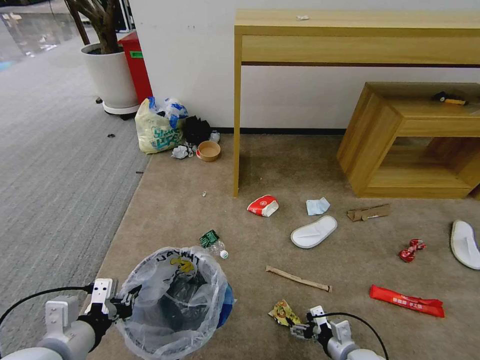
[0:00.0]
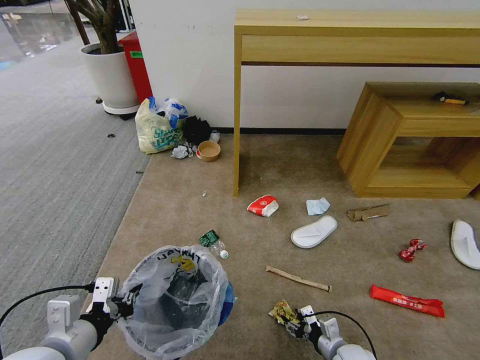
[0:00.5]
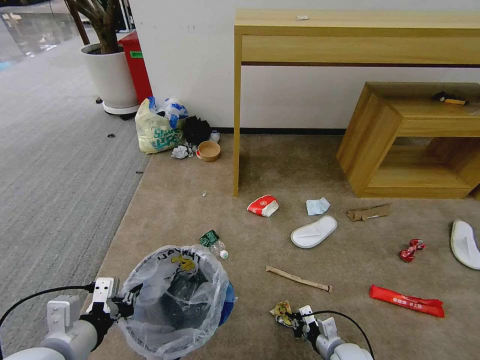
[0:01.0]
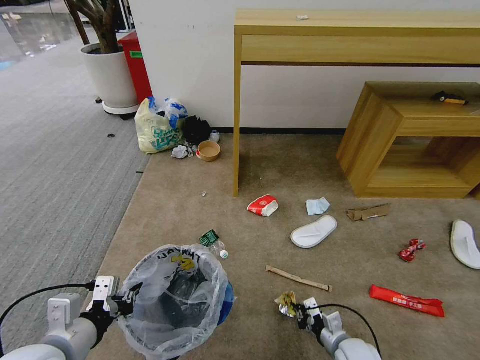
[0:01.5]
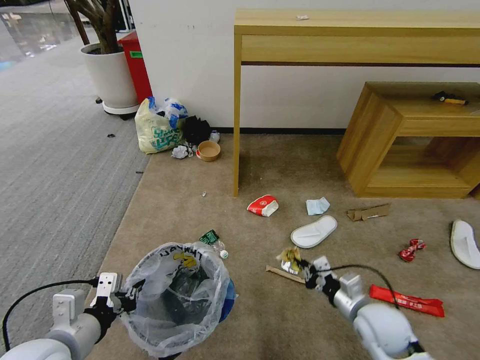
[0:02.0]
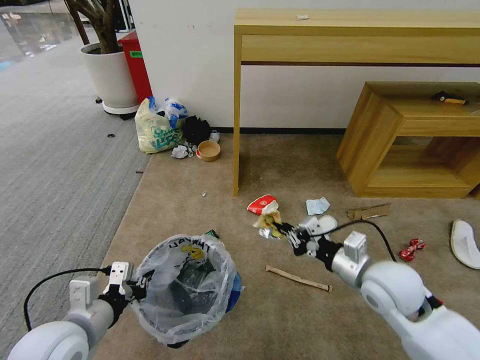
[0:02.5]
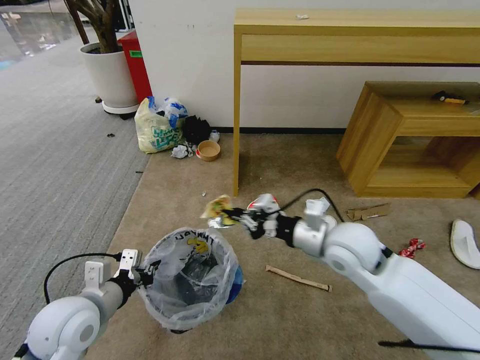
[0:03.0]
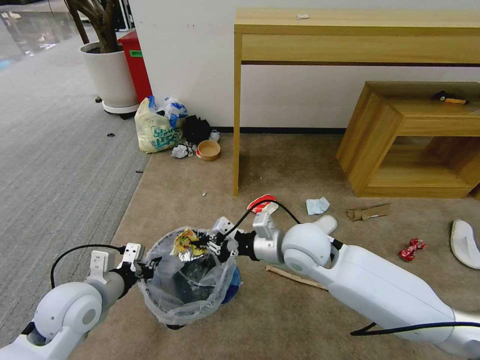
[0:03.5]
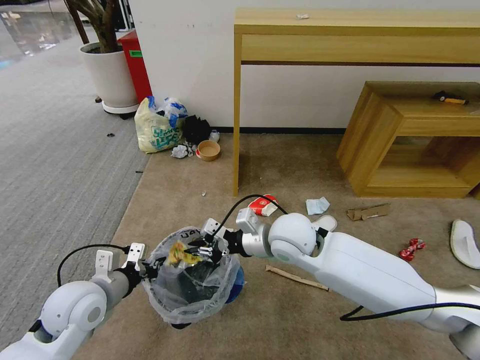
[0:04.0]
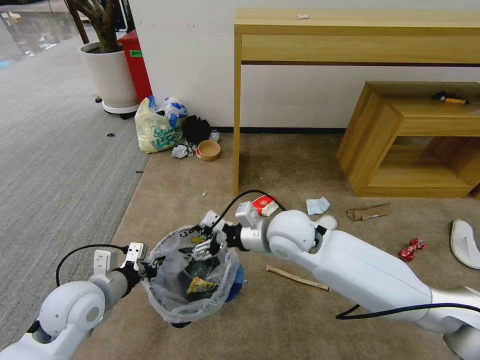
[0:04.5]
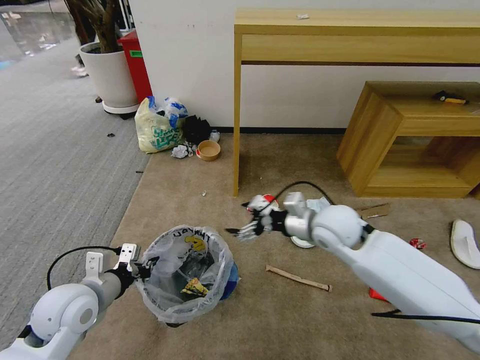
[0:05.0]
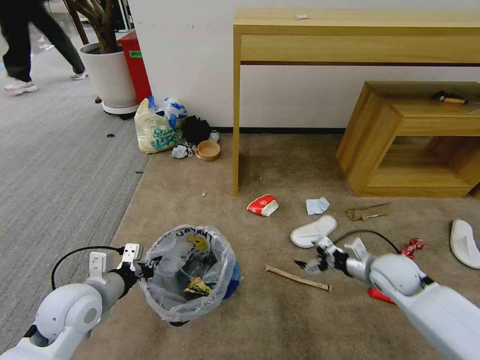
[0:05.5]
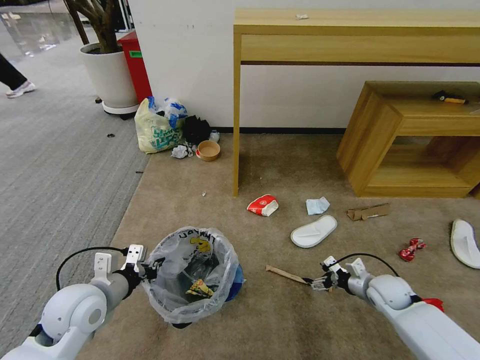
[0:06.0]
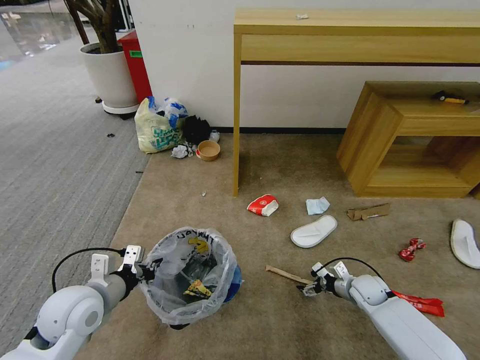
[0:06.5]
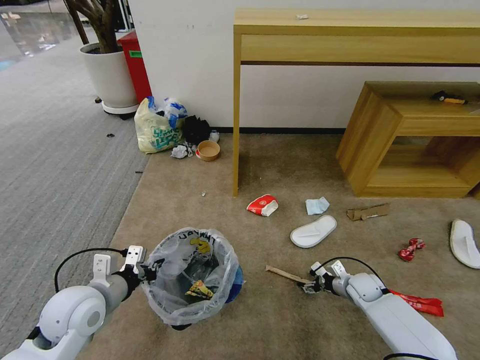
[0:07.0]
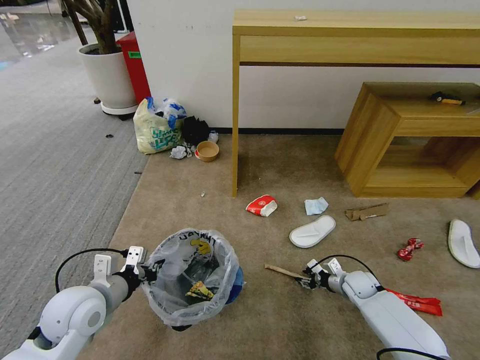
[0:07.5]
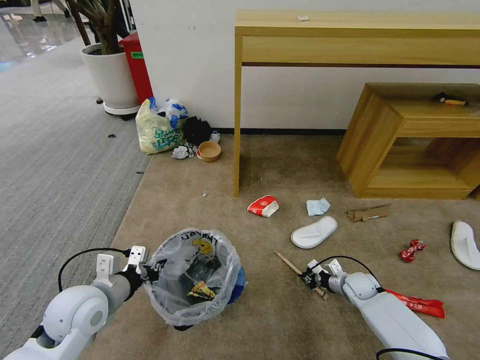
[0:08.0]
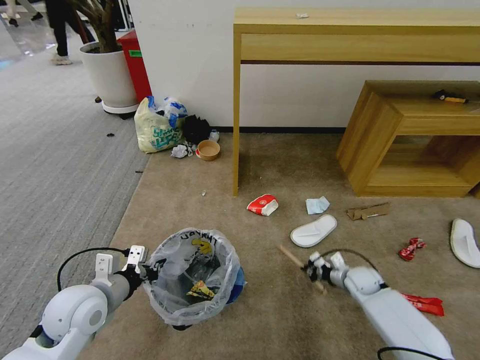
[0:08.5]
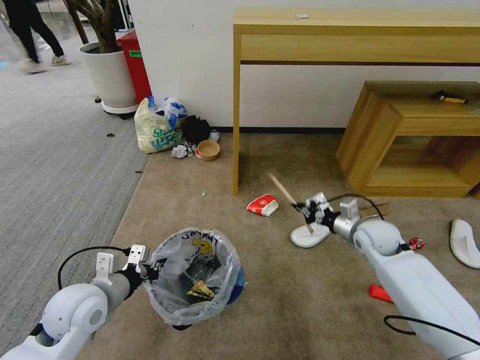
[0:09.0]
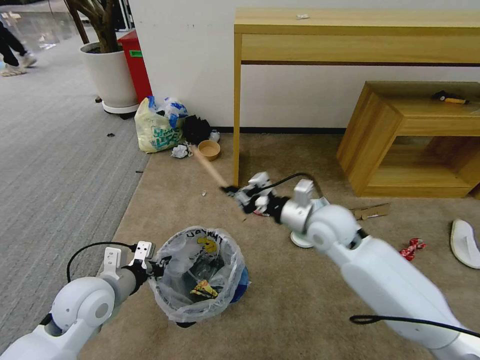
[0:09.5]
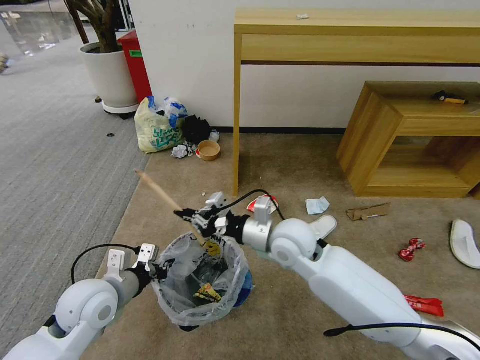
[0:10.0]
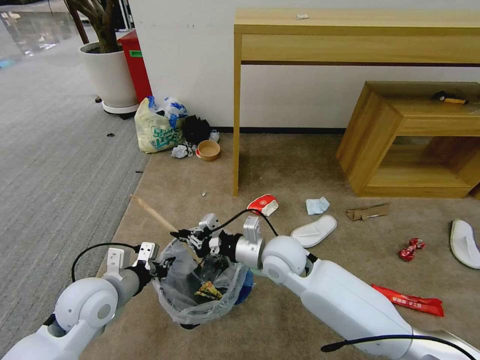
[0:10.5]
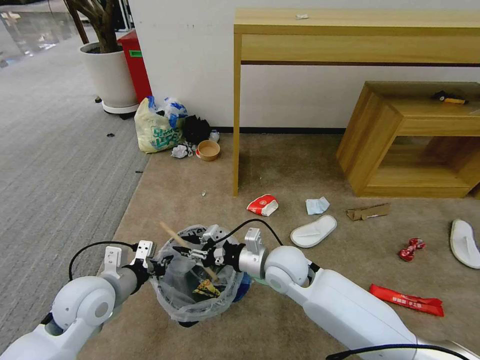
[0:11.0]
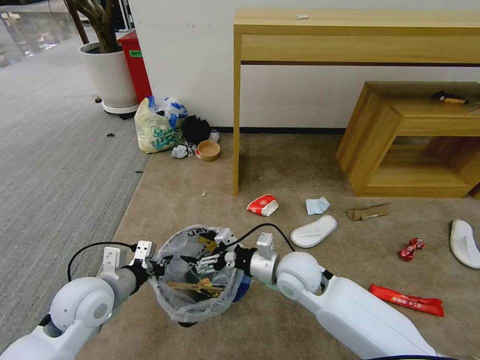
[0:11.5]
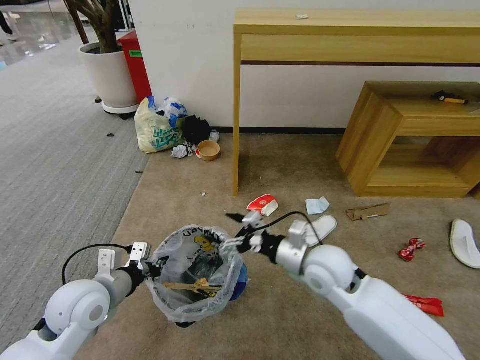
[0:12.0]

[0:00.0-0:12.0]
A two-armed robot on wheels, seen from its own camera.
Task of the whole recording: Pick up the trash bin and place the garbage on the floor into it.
0:00.0 to 0:02.0: The right gripper is displaced upward and forward by some 15 cm, and closes.
0:02.0 to 0:04.0: The right gripper travels to the left, upward and forward by roughly 30 cm, while the left gripper shifts about 10 cm forward.
0:04.0 to 0:06.0: The right gripper heads to the right and downward, covering about 35 cm, and opens its fingers.
0:06.0 to 0:08.0: The right gripper goes approximately 10 cm downward, and closes up.
0:08.0 to 0:10.0: The right gripper travels upward and to the left by about 40 cm.
0:10.0 to 0:12.0: The right gripper heads to the right, covering roughly 5 cm, and opens.

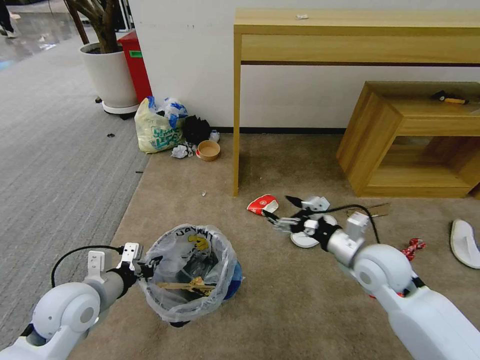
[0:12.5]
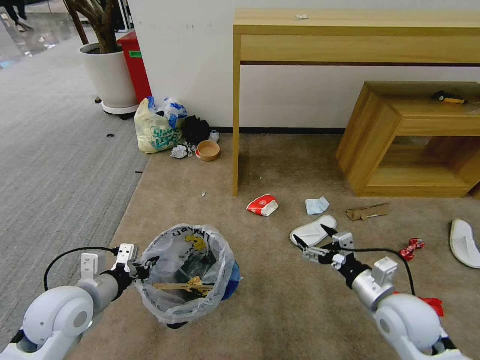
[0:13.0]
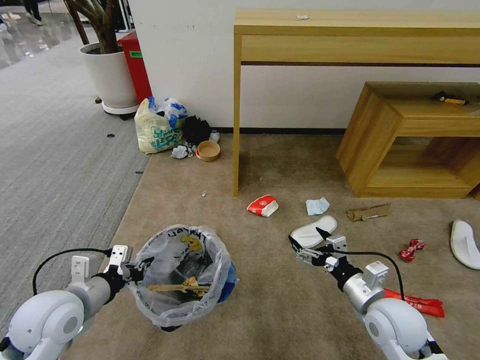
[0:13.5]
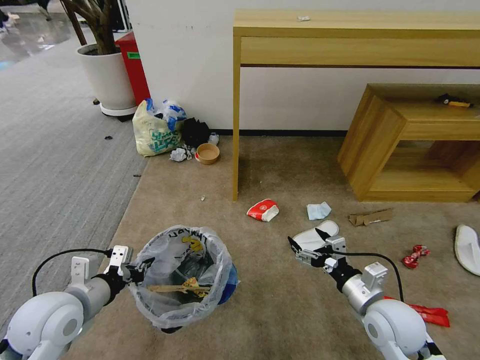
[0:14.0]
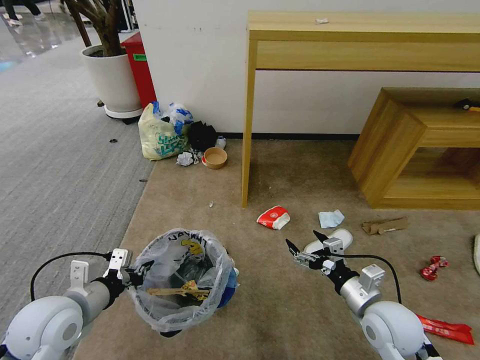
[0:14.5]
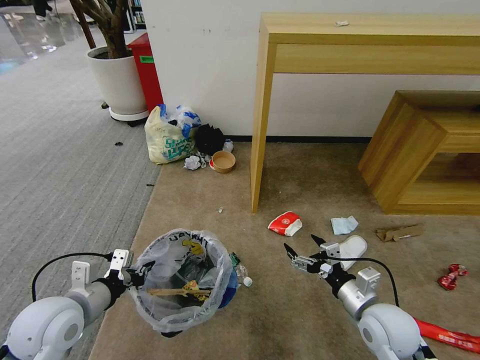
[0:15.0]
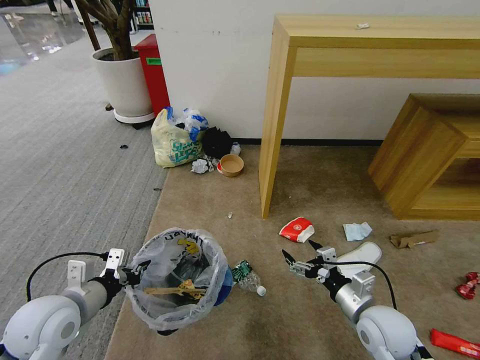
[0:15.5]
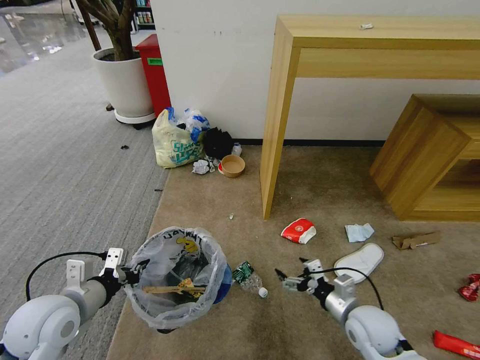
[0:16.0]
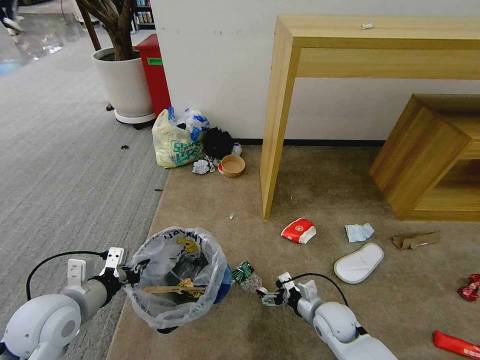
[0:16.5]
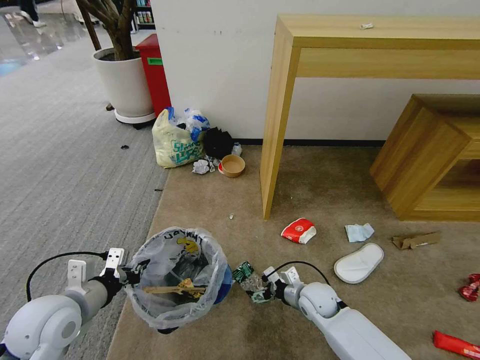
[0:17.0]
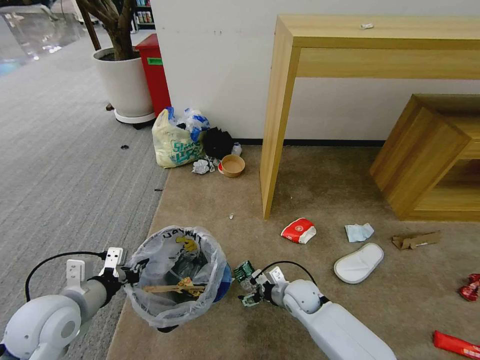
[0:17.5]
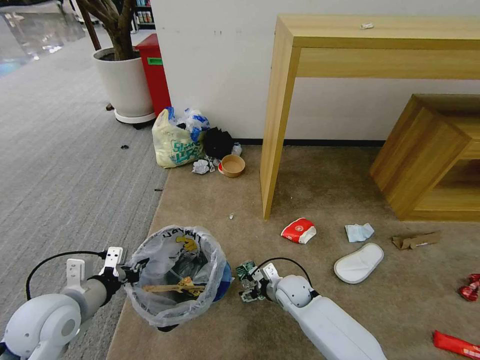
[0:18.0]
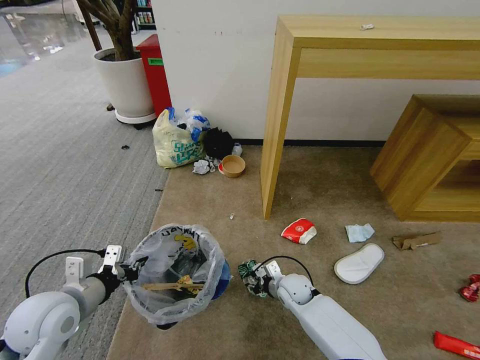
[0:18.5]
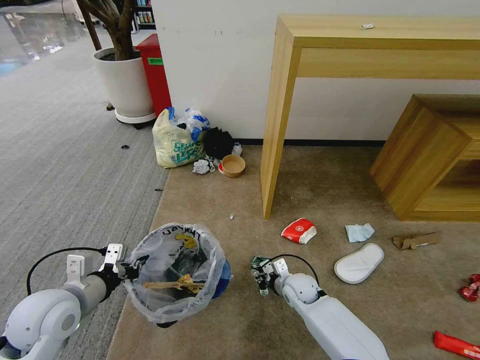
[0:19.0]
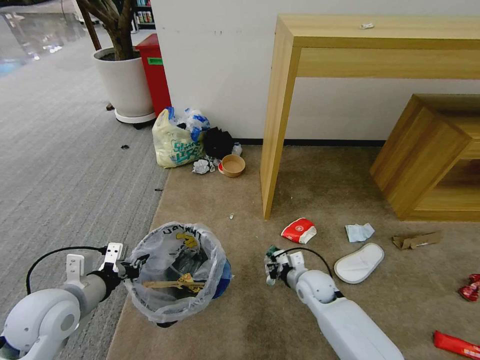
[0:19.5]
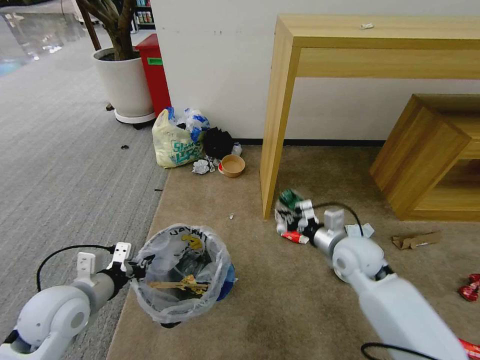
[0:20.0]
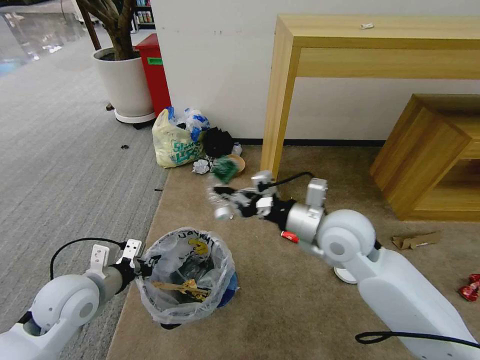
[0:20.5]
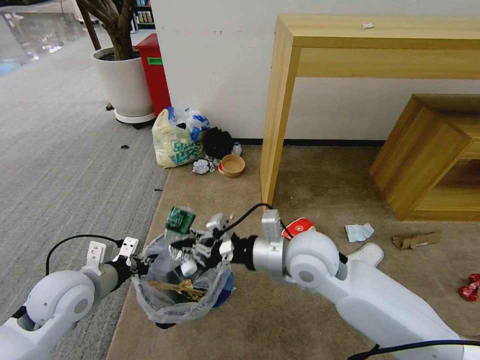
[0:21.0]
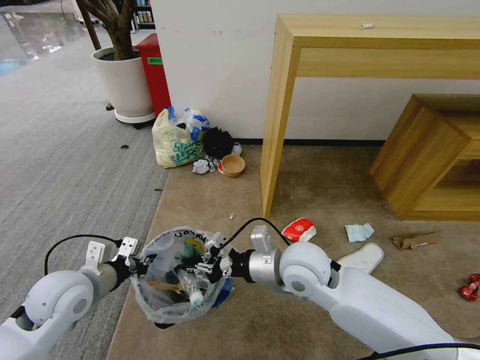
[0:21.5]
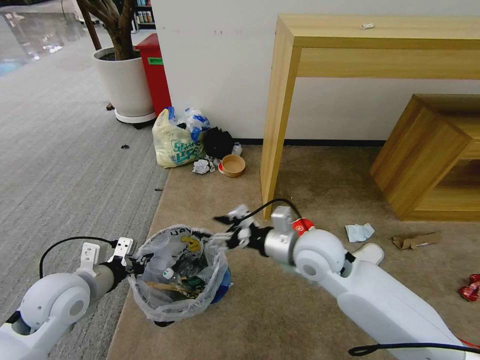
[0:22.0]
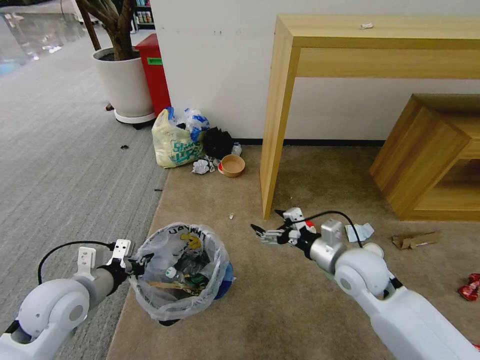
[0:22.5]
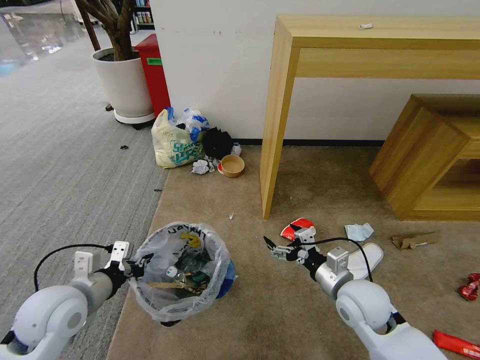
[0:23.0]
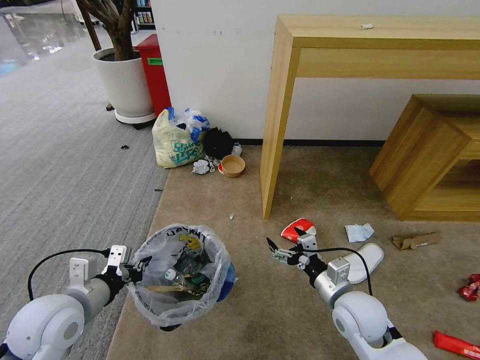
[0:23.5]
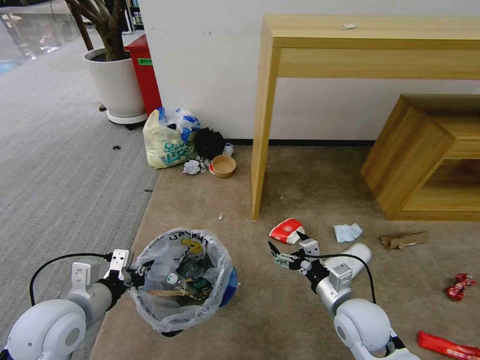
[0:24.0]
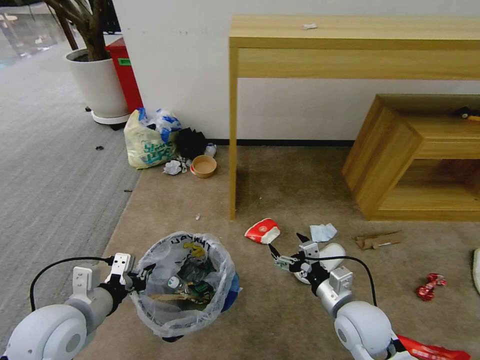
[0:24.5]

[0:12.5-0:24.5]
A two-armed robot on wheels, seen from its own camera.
Task of the whole recording: Pick up the trash bin and place the garbage on the floor into it.
0:12.5 to 0:14.5: The right gripper heads backward and downward, covering some 10 cm.
0:14.5 to 0:16.5: The right gripper shifts some 15 cm downward and to the left.
0:16.5 to 0:18.5: The right gripper heads forward and to the left, covering approximately 10 cm, and closes its fingers.
0:18.5 to 0:20.5: The right gripper heads upward, covering approximately 30 cm, and closes its fingers.
0:20.5 to 0:22.5: The right gripper is displaced downward and to the right by approximately 10 cm, and opens.
0:22.5 to 0:24.5: The right gripper shifts roughly 10 cm backward and downward.

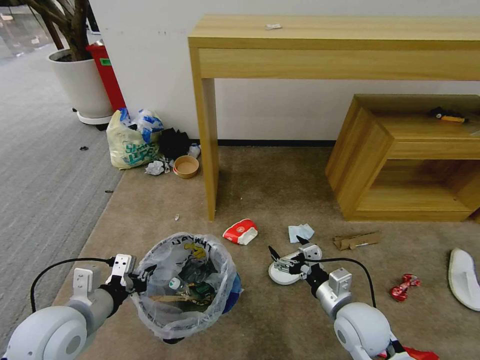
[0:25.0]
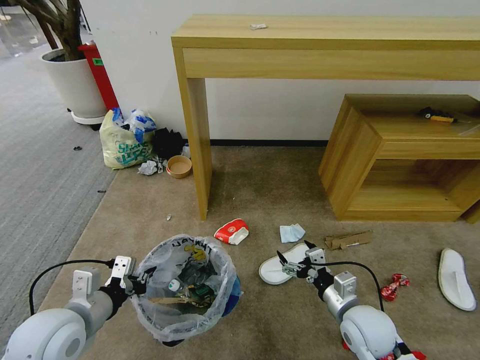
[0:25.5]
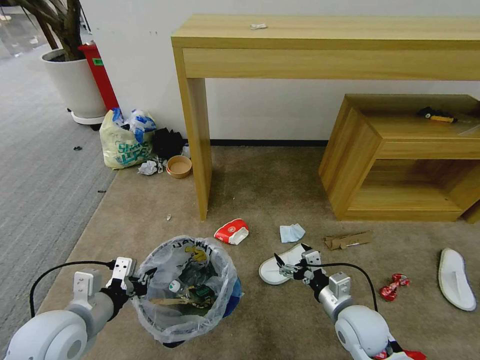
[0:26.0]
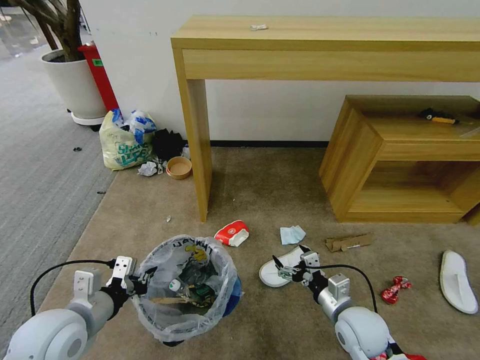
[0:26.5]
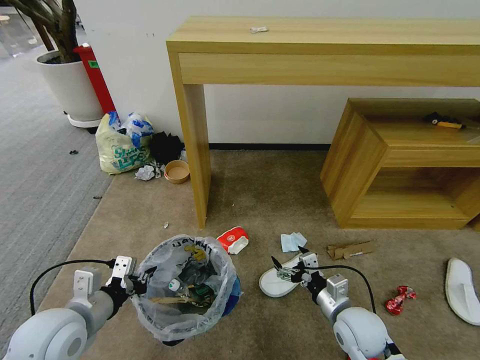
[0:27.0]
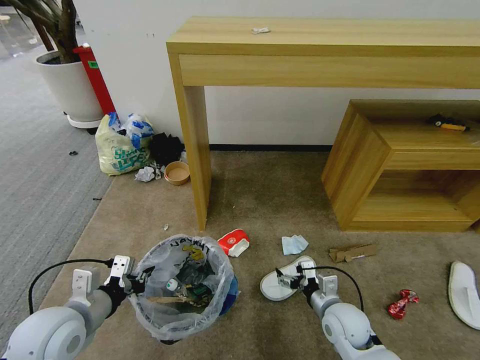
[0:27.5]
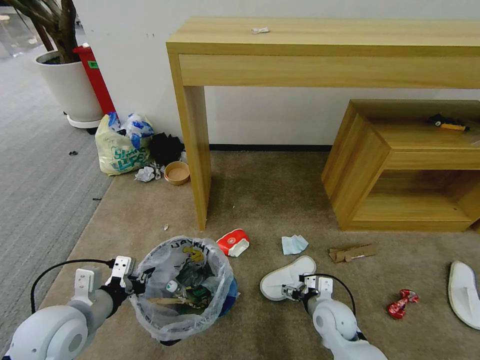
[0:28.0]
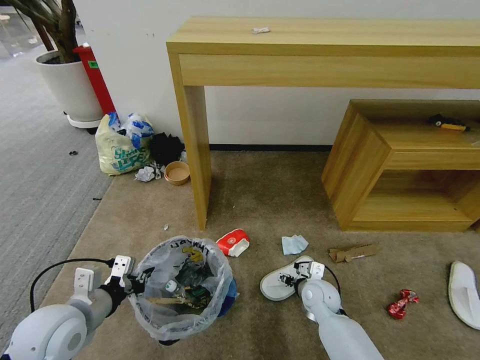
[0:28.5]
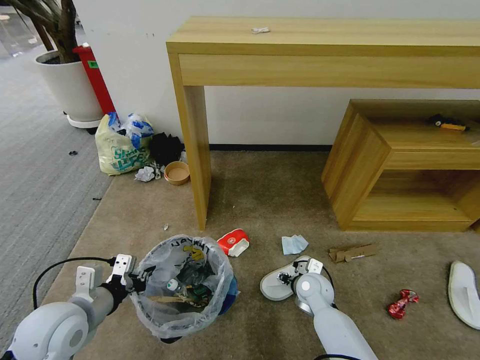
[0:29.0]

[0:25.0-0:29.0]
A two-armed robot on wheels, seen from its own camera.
Task of the whole recording: Pick up the trash bin and place the garbage on the floor into it.
0:27.0 to 0:29.0: The right gripper heads forward and downward, covering about 15 cm.
